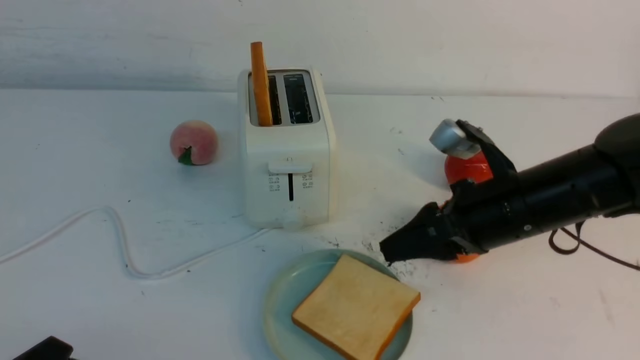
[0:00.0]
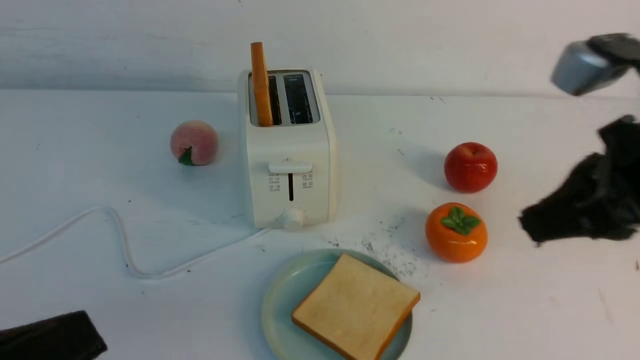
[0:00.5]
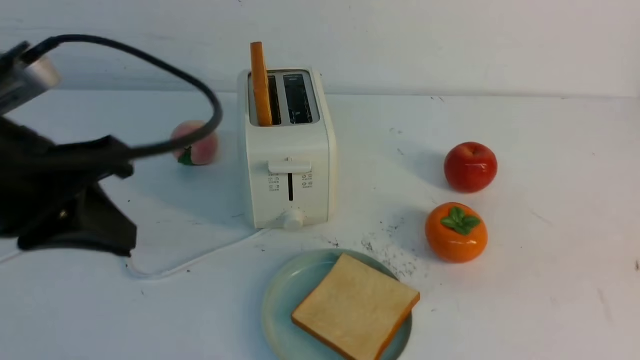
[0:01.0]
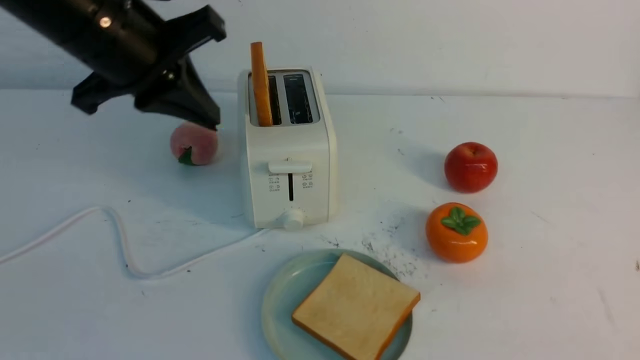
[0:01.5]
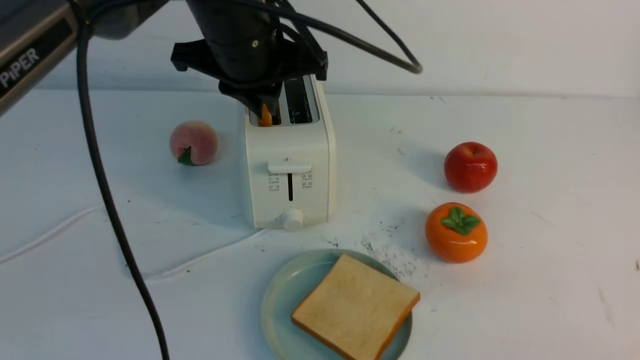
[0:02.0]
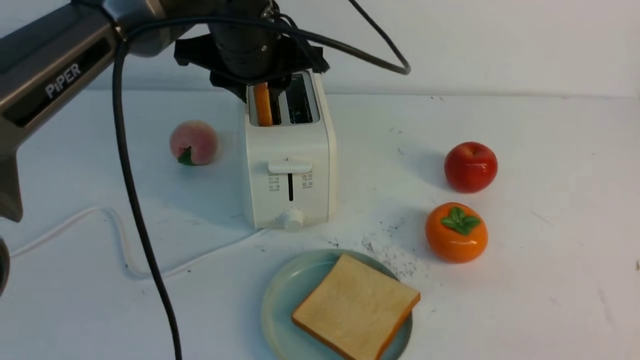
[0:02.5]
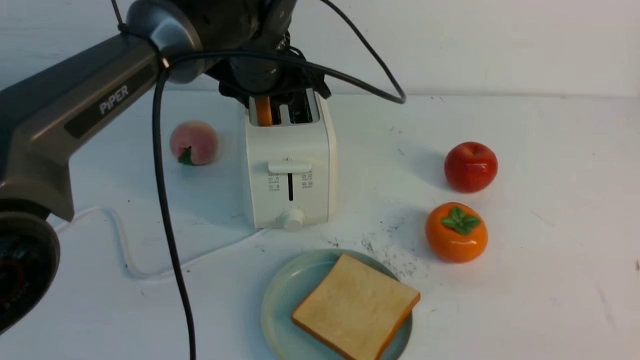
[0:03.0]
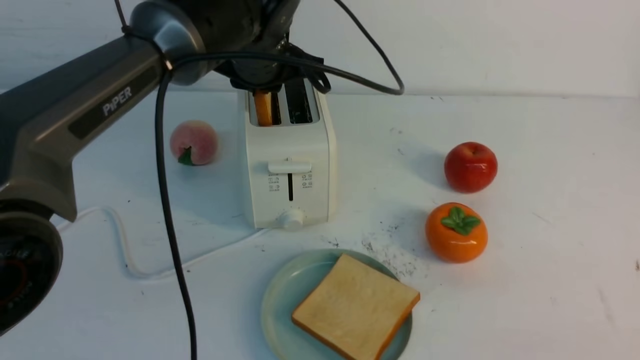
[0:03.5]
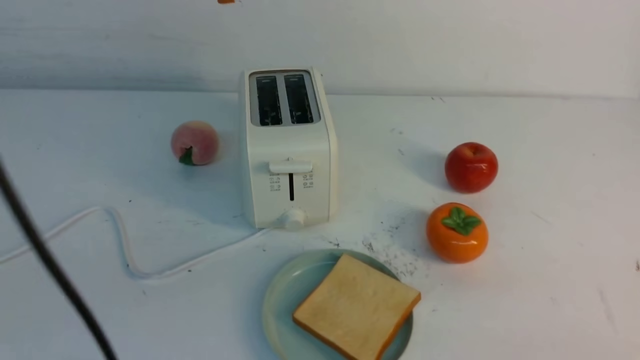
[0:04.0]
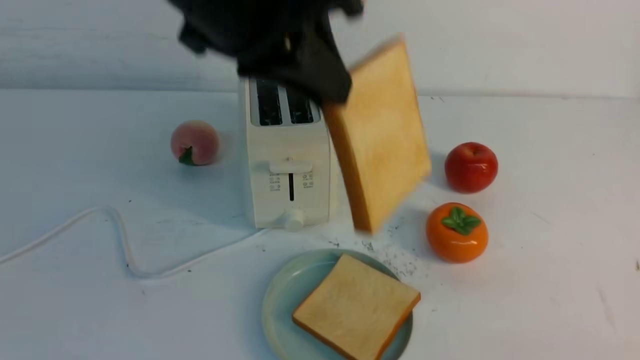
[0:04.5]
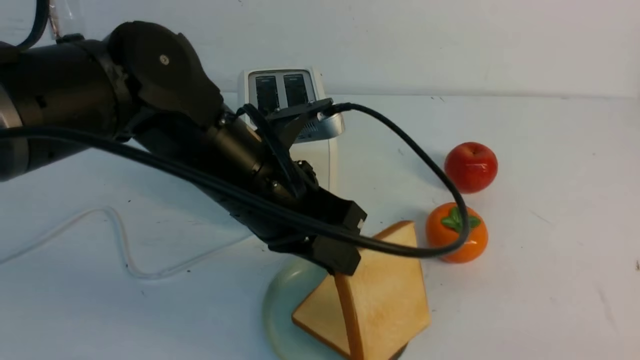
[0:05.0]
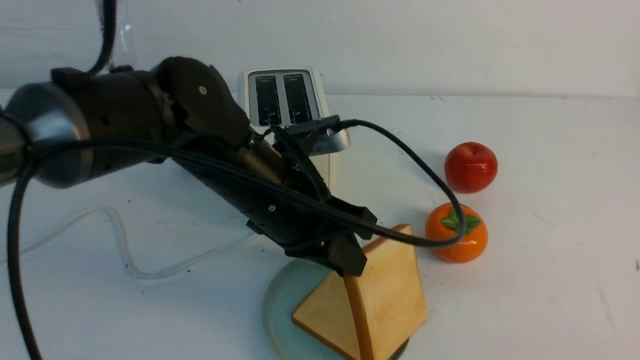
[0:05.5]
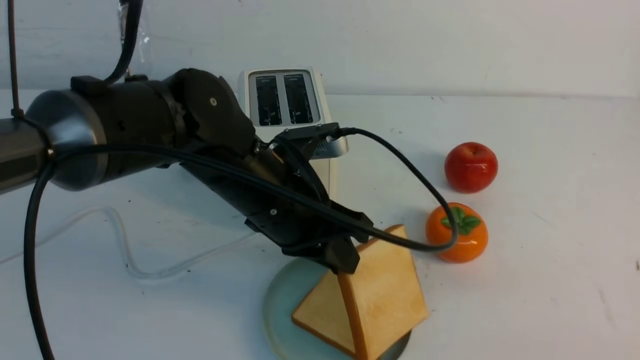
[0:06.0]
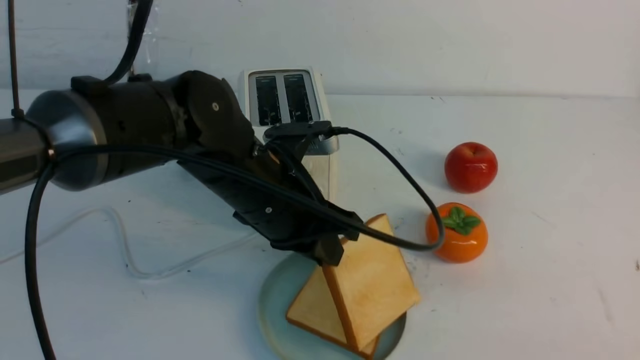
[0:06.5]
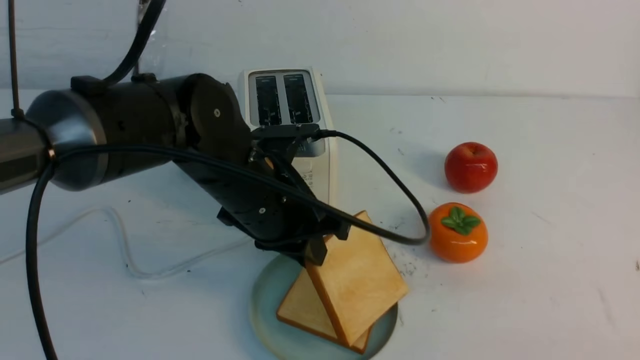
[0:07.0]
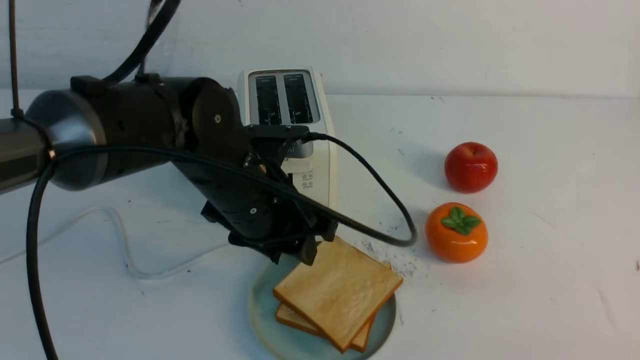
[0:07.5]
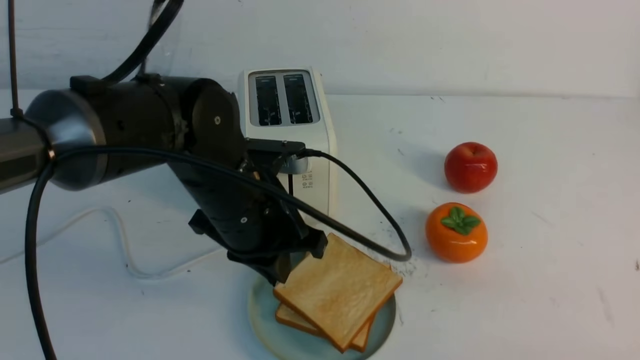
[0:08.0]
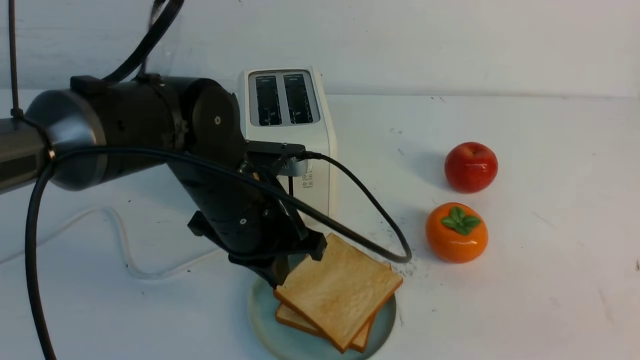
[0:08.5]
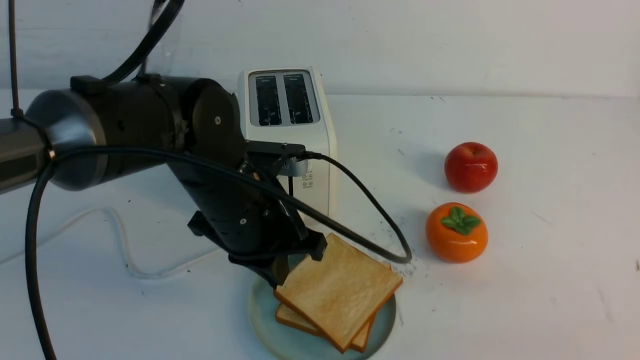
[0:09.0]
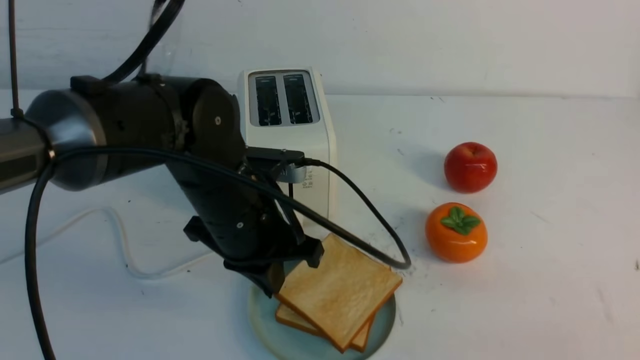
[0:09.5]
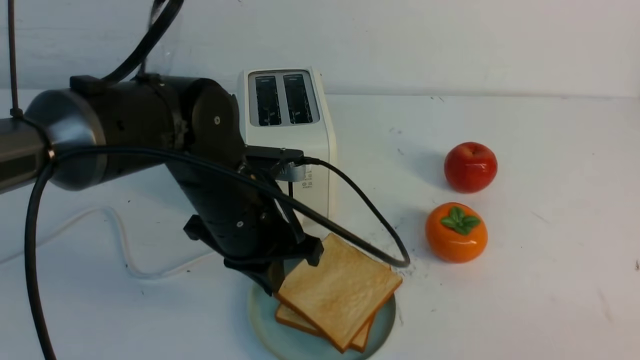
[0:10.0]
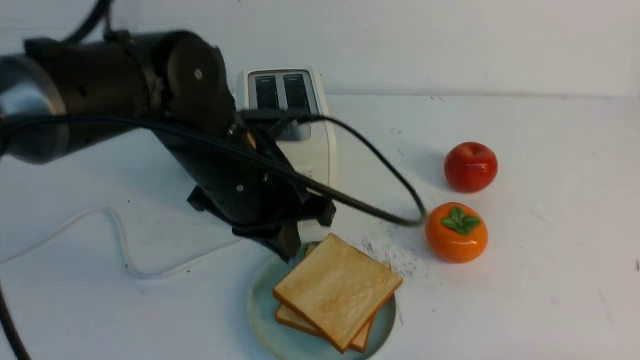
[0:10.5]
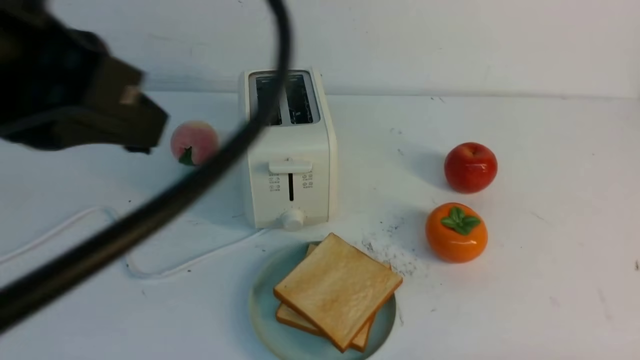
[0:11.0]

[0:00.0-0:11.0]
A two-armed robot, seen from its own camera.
Task of the whole recording: take toasted bread from bread machine on white table place on plate.
Step, 0:00.0 to 0:03.5: use the left arm to take out a slice of bread.
Step, 0:04.0 to 0:07.5: use the left arm to put a slice of bread into the empty plate.
0:00.0 to 0:02.0: The left gripper is displaced forward, upward and to the right by about 40 cm. Meanwhile the right gripper is displaced backward and to the right by some 30 cm, and closes up.
0:02.0 to 0:03.5: The left gripper travels forward by roughly 5 cm, and opens and closes again.
0:03.5 to 0:05.5: The left gripper goes about 15 cm backward, and moves about 15 cm upward and comes back.
0:05.5 to 0:07.5: The left gripper opens its fingers.
0:07.5 to 0:09.0: The left gripper closes up, while the right gripper heads downward, covering roughly 5 cm.
0:09.0 to 0:11.0: The left gripper is displaced upward and backward by about 25 cm; the right gripper shifts approximately 10 cm downward.

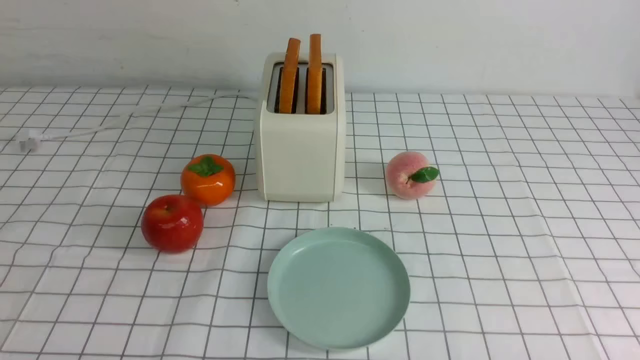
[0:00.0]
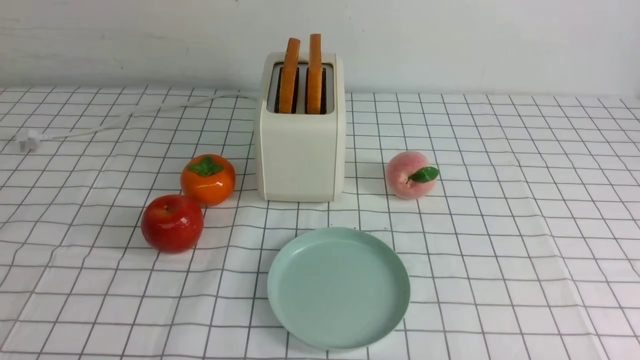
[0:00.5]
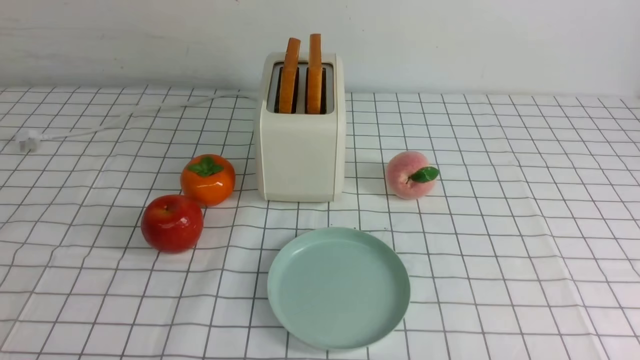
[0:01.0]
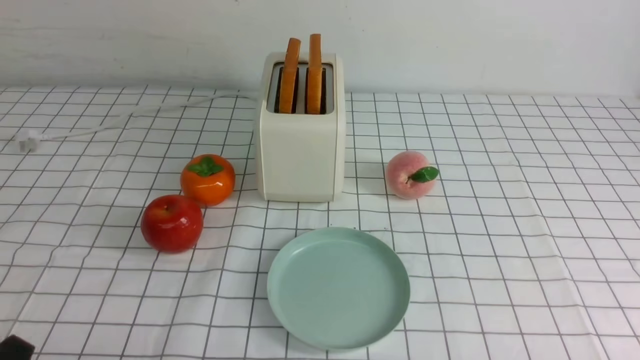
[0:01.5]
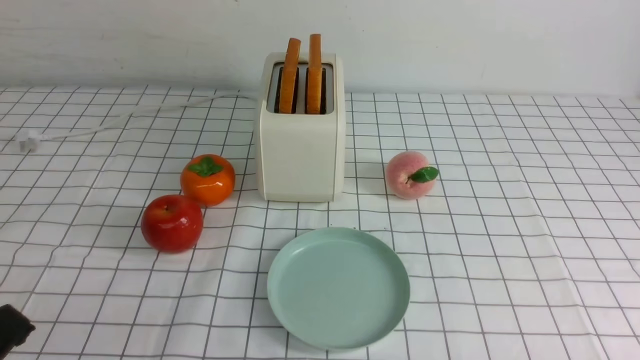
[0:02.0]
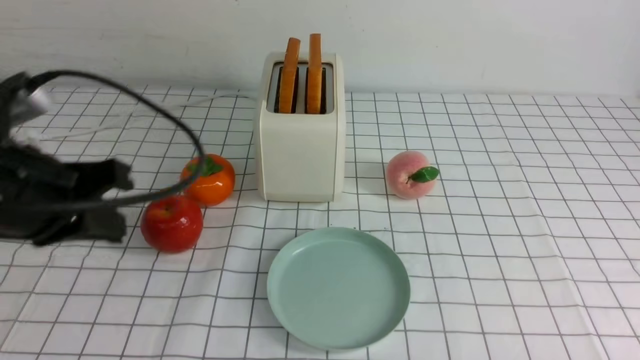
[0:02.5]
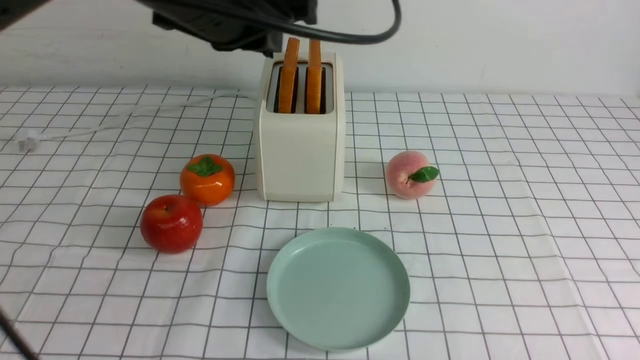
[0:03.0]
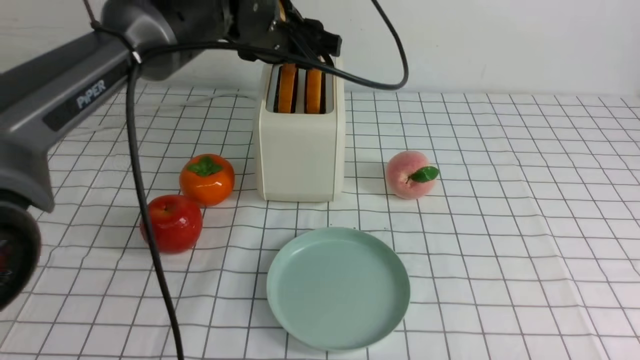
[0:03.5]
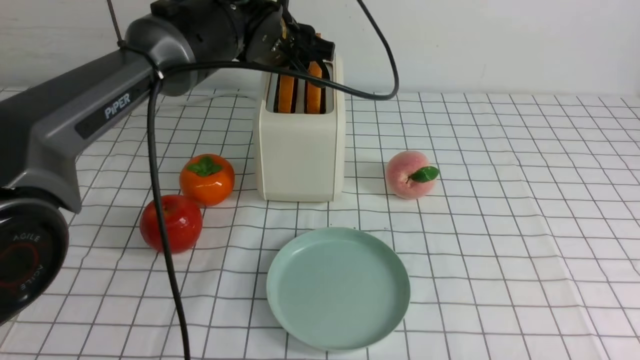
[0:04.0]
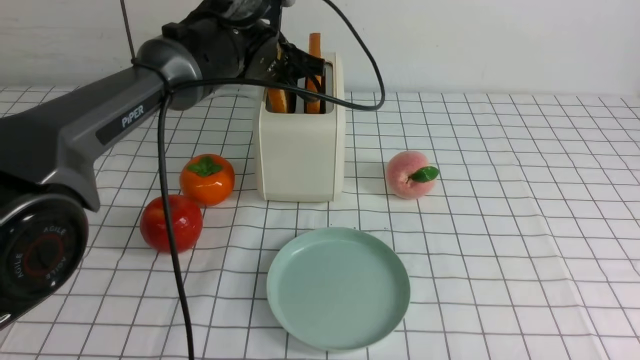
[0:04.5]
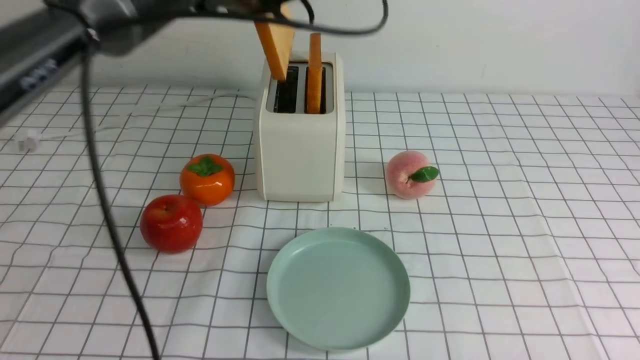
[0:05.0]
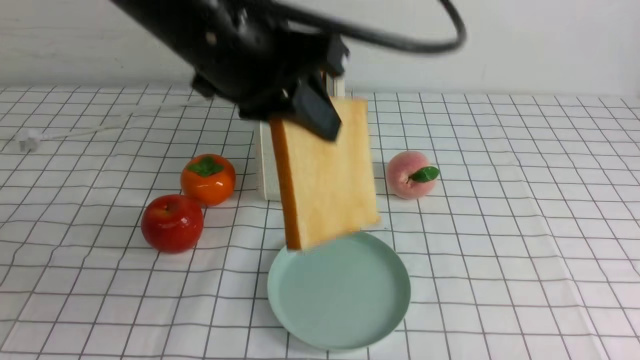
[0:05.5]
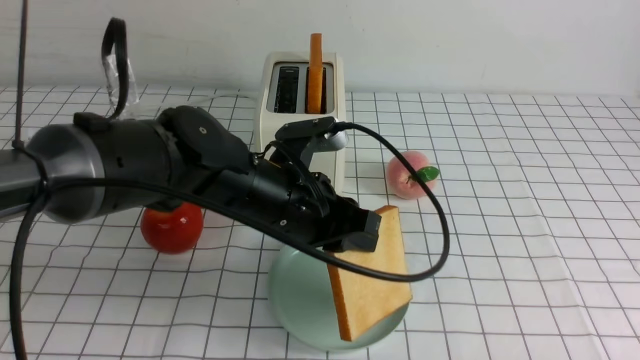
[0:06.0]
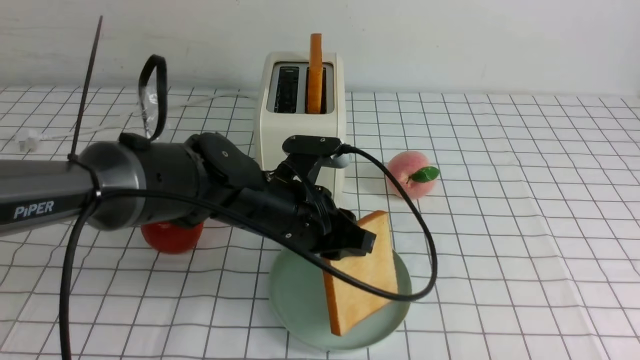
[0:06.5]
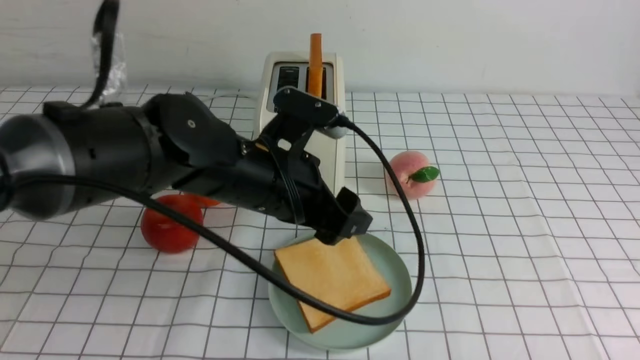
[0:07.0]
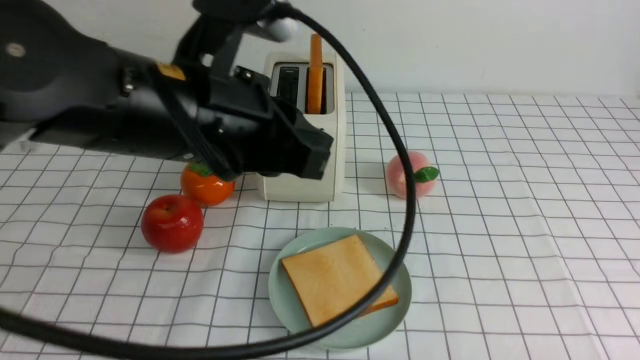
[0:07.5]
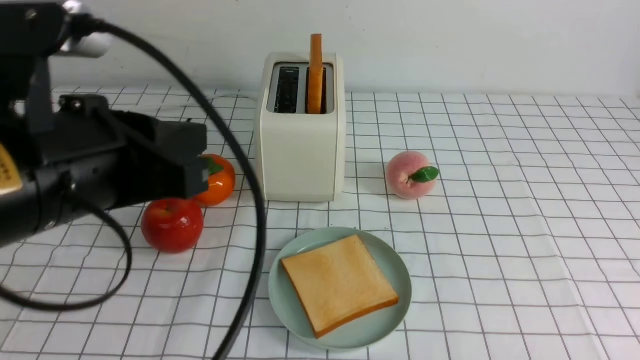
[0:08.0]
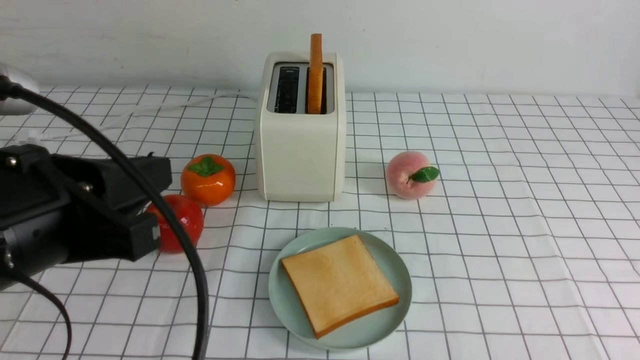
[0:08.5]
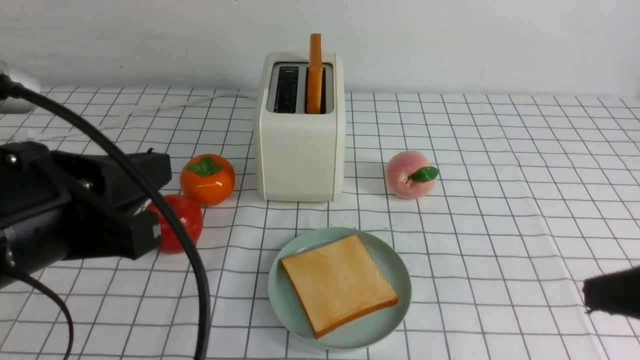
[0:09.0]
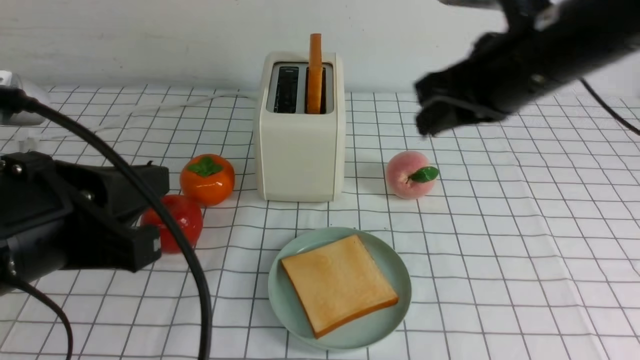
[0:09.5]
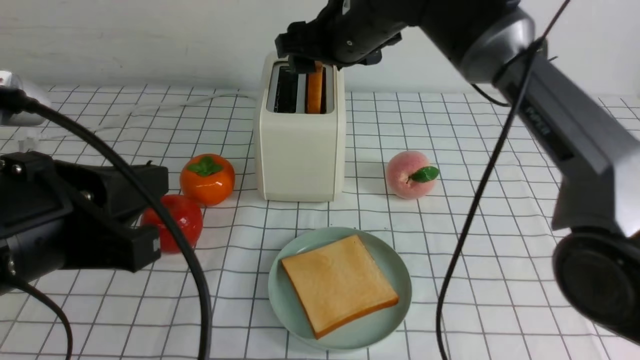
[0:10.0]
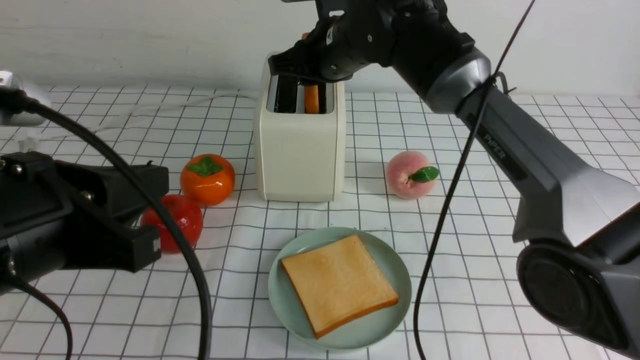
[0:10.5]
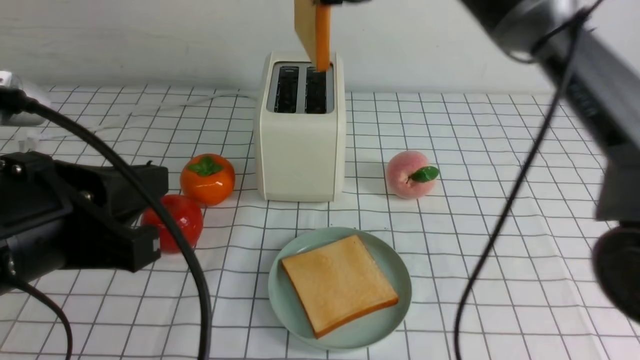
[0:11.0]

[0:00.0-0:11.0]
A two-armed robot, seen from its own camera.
Task of the whole recording: take toasted bread from bread machine on white checkered table place on plate.
Step, 0:00.0 to 0:04.5: use the left arm to take out a slice of bread.
Step, 0:05.0 to 0:07.0: use the left arm to put a slice of bread into the empty plate.
Step, 0:07.5 to 0:10.5: use the right arm to take out a slice of bread.
0:02.0 to 0:03.5: The left gripper travels forward and to the right by roughly 40 cm, and opens its fingers.
0:03.5 to 0:05.5: The left gripper is displaced backward by some 15 cm, and closes.
0:05.5 to 0:07.5: The left gripper travels backward by roughly 5 cm, goes downward and returns, roughly 15 cm each way, and opens and closes again.
0:07.5 to 0:09.0: The right gripper shifts approximately 20 cm upward and forward. The left gripper moves backward and to the left, about 10 cm.
0:09.0 to 0:11.0: The right gripper travels forward, to the left and upward by roughly 35 cm, and opens, then closes once more.
